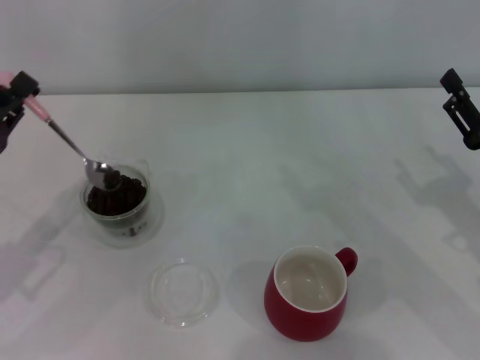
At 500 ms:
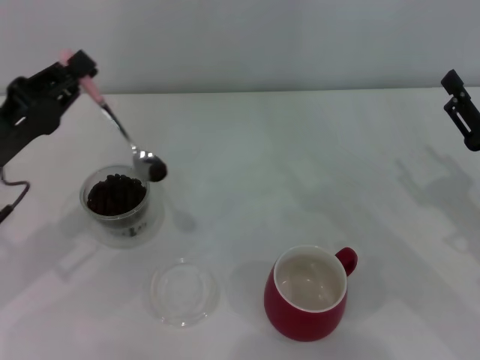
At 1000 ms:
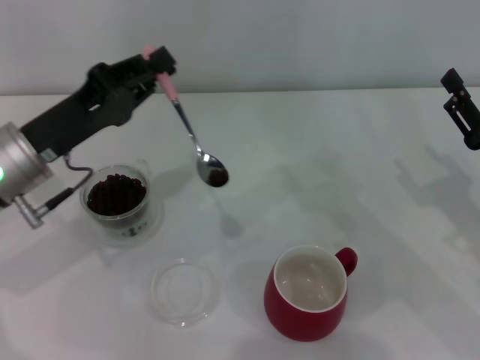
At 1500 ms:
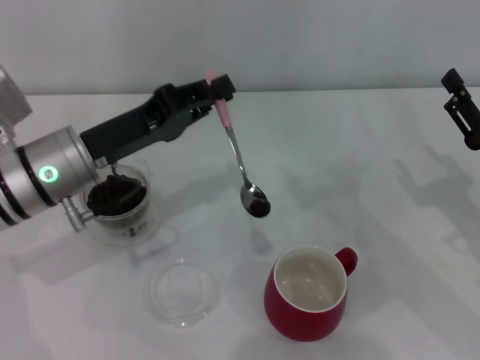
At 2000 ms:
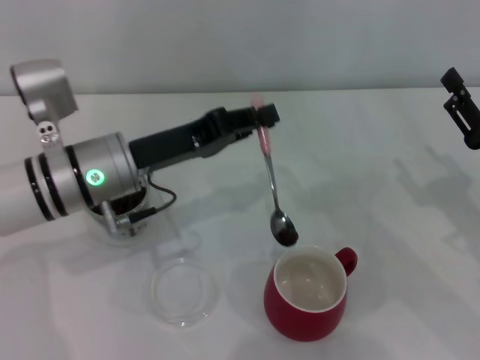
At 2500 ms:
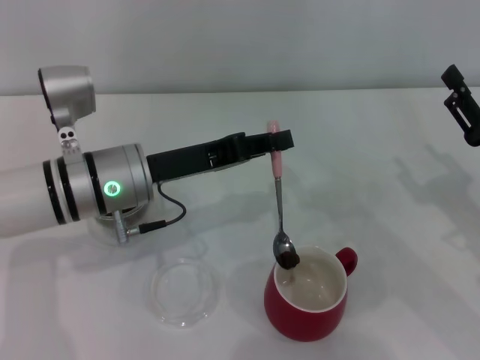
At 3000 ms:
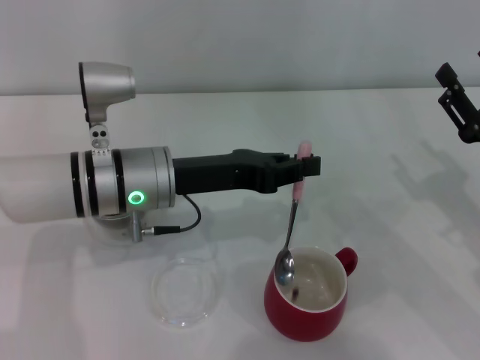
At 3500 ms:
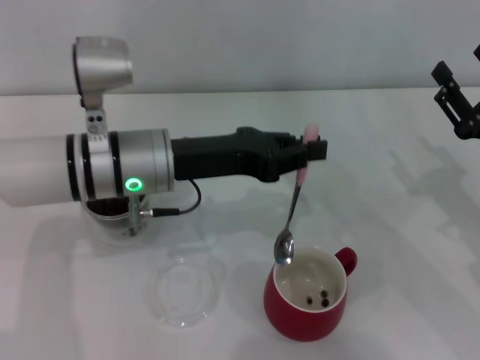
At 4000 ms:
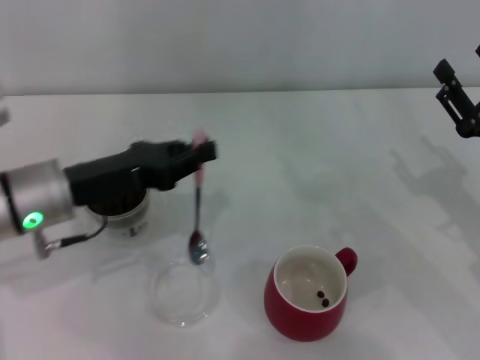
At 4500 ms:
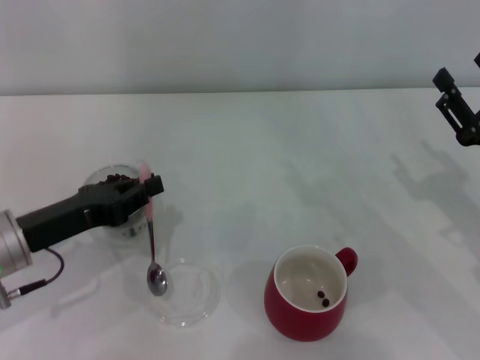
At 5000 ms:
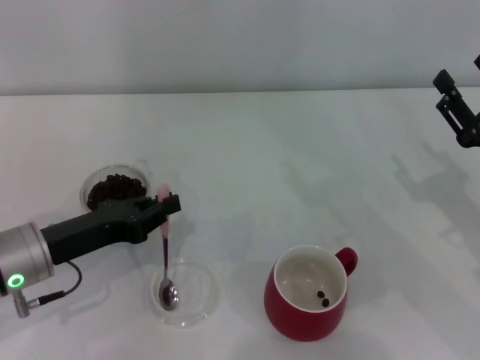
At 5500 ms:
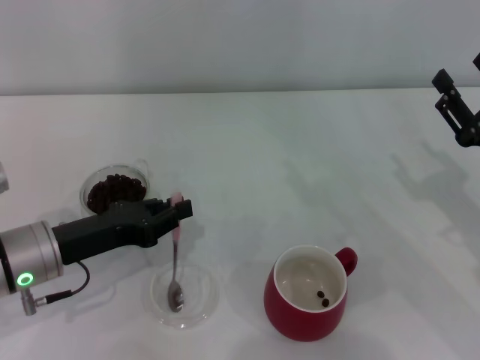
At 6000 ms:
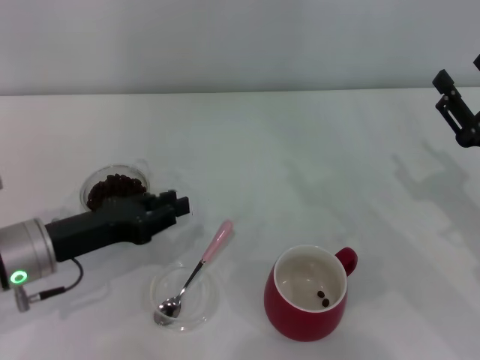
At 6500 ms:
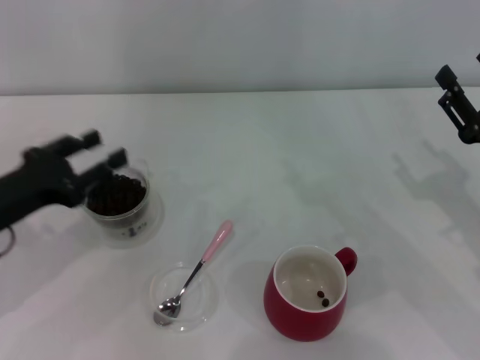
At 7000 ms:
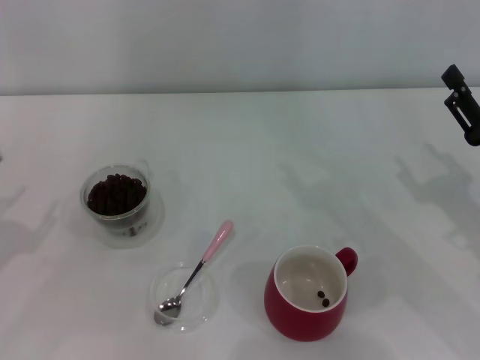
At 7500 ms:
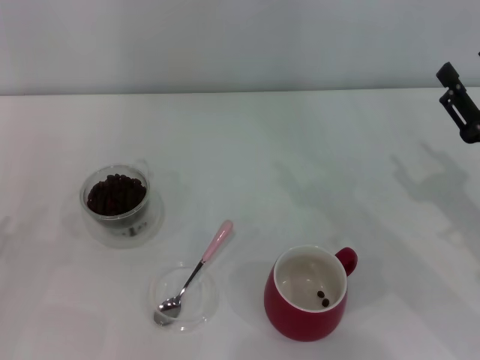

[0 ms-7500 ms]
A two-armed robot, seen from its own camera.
Task of the whole recording: Use a pink spoon to take out the coffee beans from the glass and pour them into the red cup.
0 ms to 2000 ms: The left gripper shifts about 15 cm to the right.
2000 ms to 4000 ms: The left gripper heads to the left, covering approximately 5 cm.
4000 ms to 5500 ms: The left gripper moves about 5 cm.
5500 ms to 7500 ms: The left gripper is displaced to the left and backward by roughly 15 cm, and opens.
